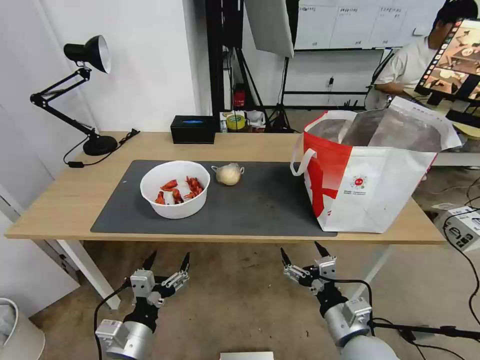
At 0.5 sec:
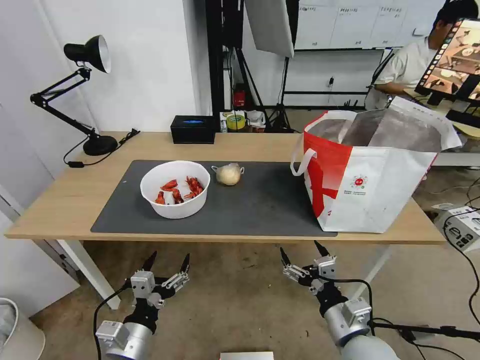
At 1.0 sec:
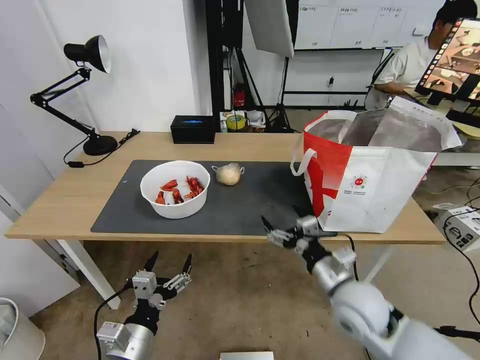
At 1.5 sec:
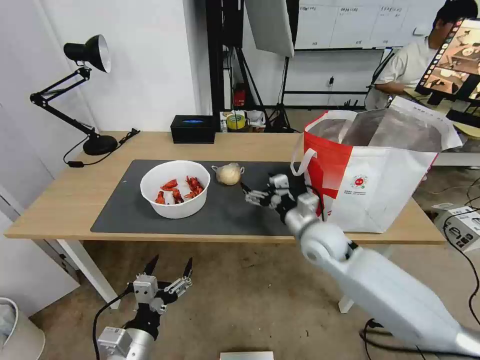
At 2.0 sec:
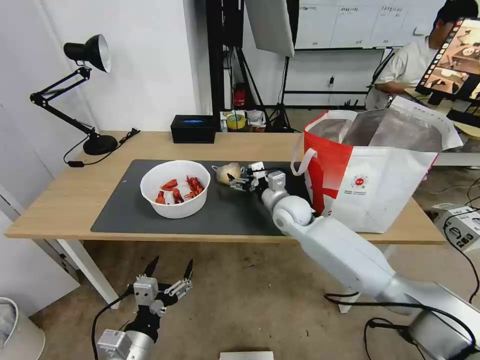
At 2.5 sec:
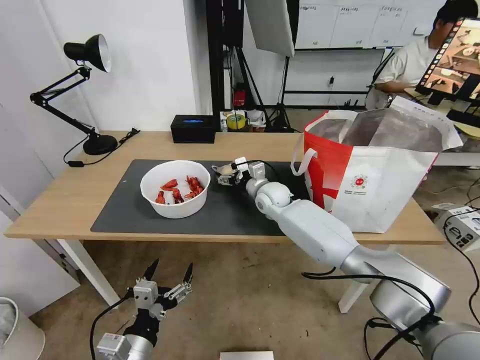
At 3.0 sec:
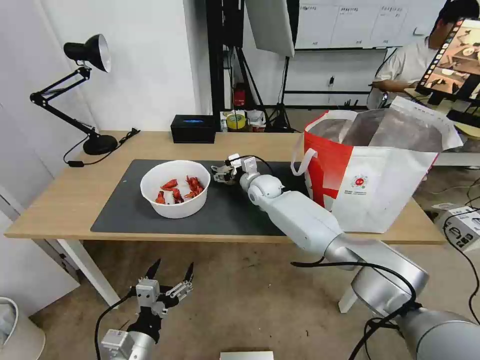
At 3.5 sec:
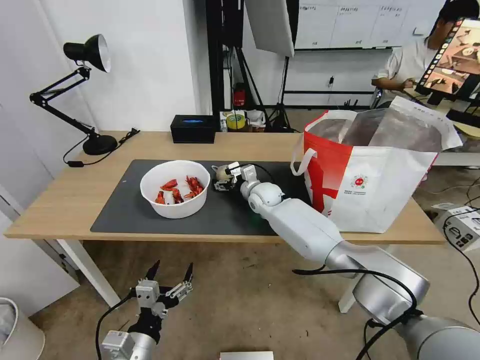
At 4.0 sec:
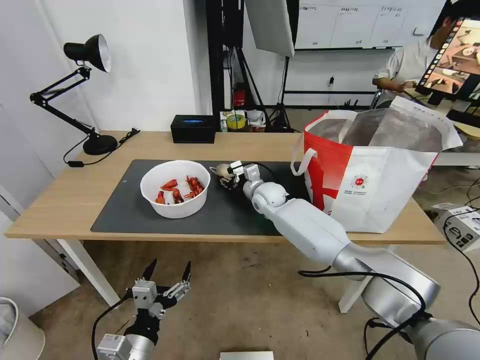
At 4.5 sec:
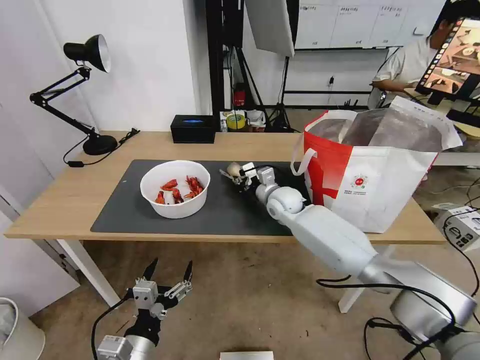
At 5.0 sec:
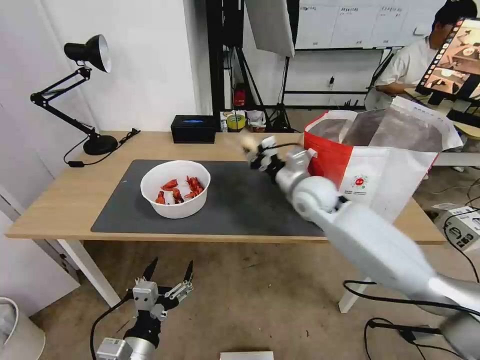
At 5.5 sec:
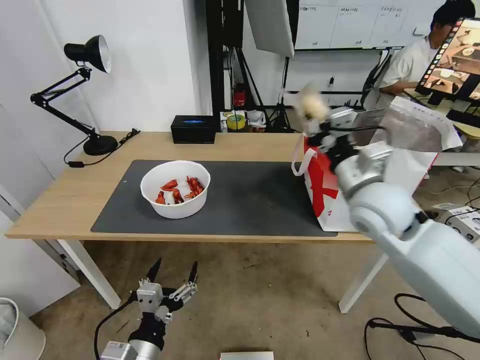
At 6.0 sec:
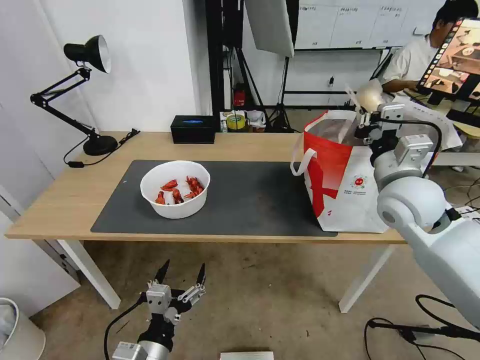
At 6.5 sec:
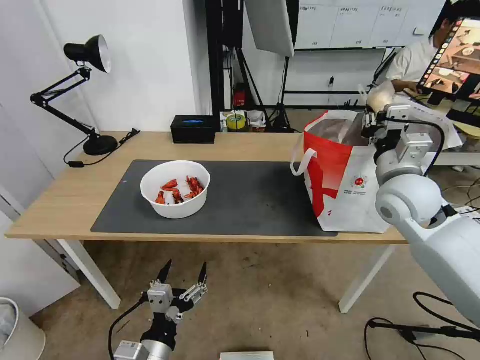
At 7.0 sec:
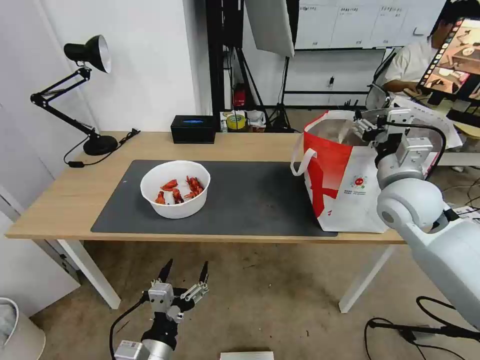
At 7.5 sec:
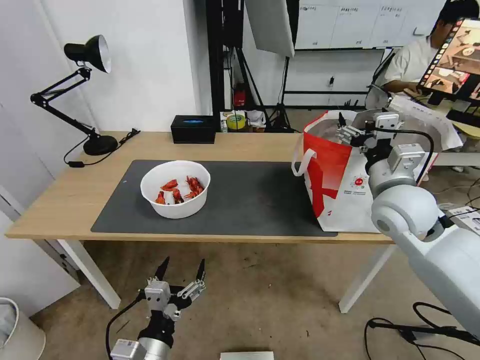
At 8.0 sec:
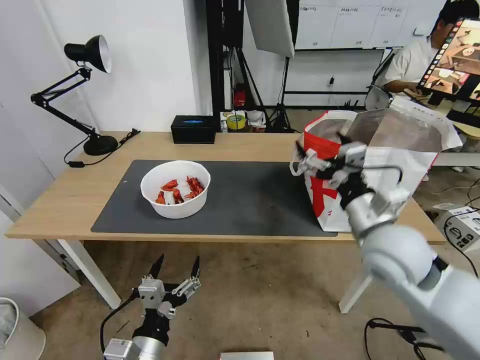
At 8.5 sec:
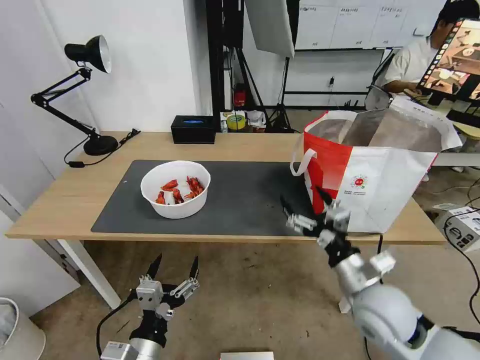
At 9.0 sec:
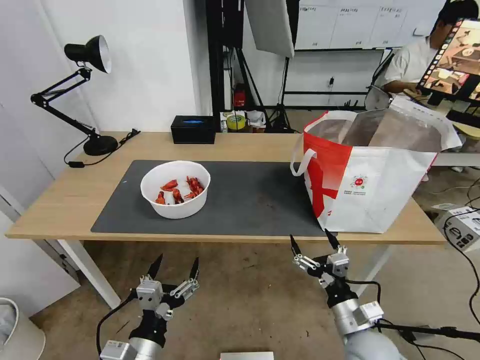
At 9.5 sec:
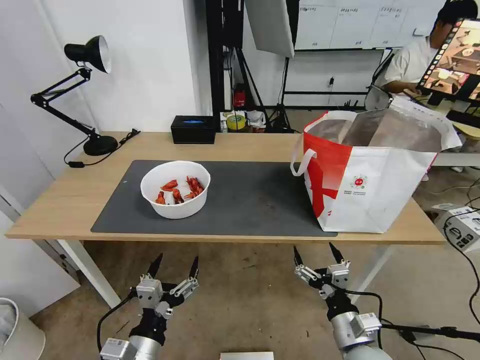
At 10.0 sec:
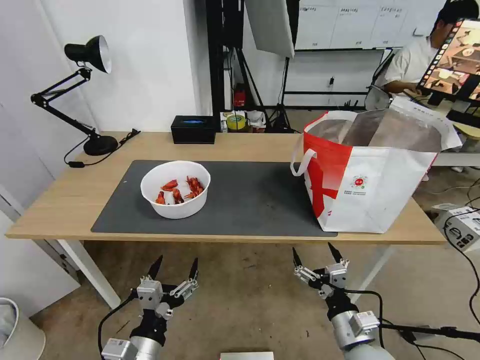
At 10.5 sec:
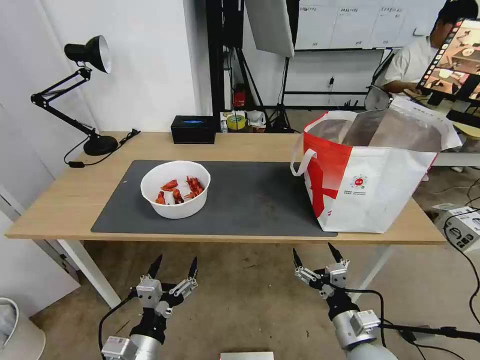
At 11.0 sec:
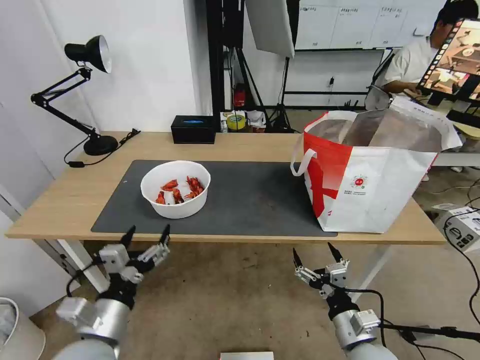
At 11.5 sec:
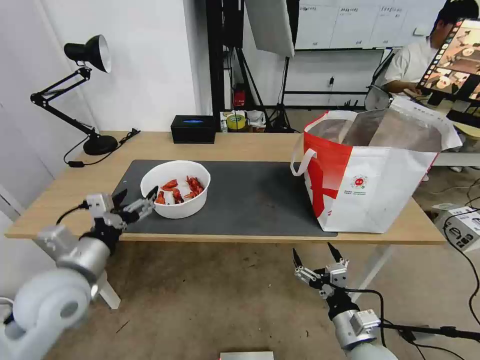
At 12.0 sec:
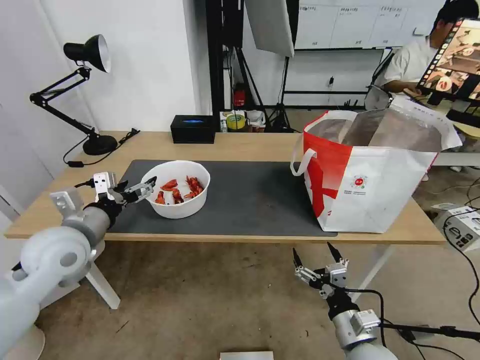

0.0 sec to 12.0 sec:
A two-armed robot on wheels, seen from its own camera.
Task of the whole recording: Pick up the trash from the table and place it into the takeout bag.
0.0 sec to 2.0 sec: The right gripper goes approximately 30 cm forward.
2.0 sec to 4.0 sec: The right gripper goes some 5 cm forward, and closes.
4.0 sec to 6.0 sec: The right gripper moves to the right, backward and upward, about 35 cm, and closes.
6.0 sec to 8.0 sec: The right gripper goes approximately 10 cm backward and to the left, and opens.
8.0 sec to 10.0 sec: The right gripper is displaced downward and backward by roughly 25 cm.
10.0 sec to 12.0 sec: The left gripper moves forward, upward and to the left, roughly 30 cm.

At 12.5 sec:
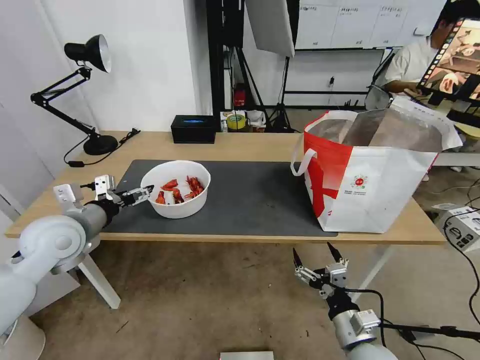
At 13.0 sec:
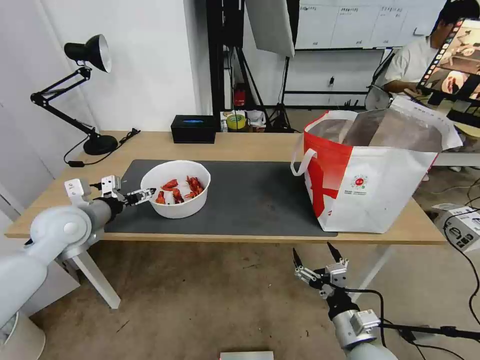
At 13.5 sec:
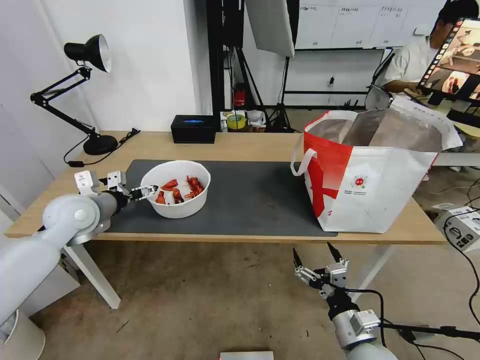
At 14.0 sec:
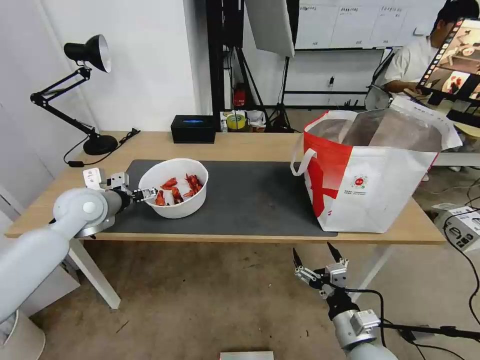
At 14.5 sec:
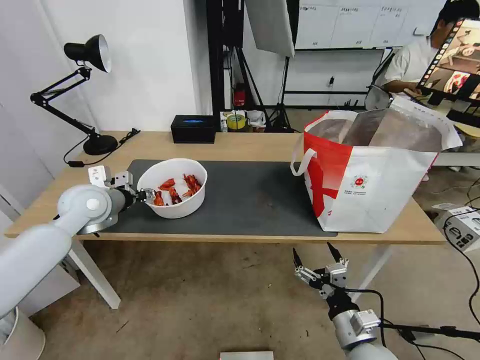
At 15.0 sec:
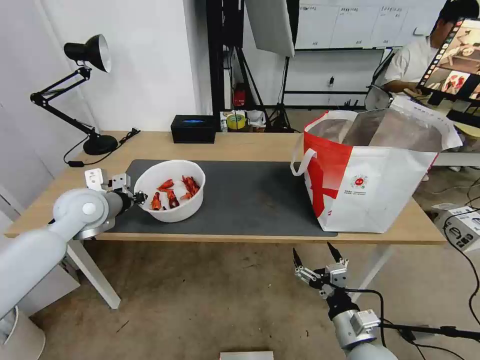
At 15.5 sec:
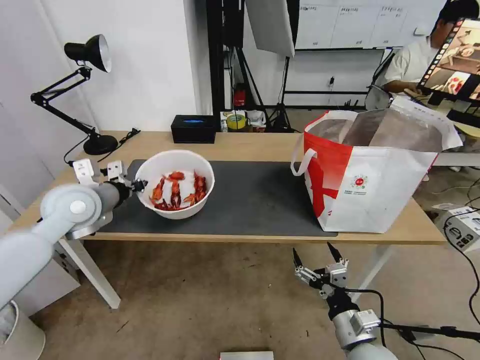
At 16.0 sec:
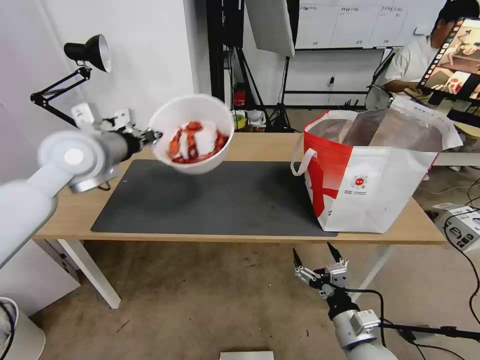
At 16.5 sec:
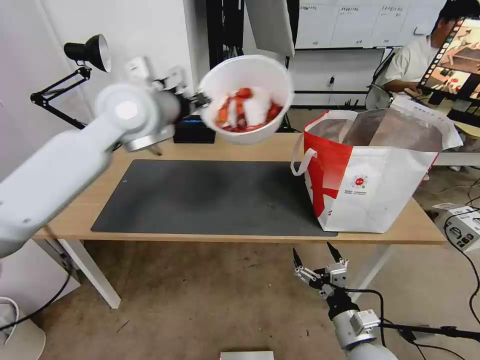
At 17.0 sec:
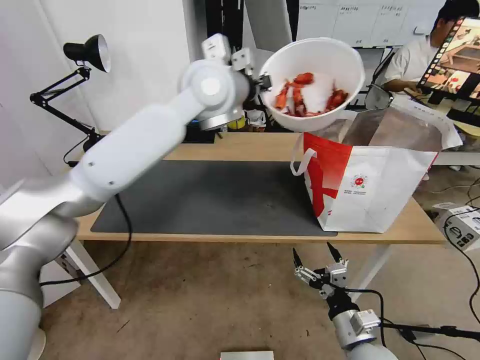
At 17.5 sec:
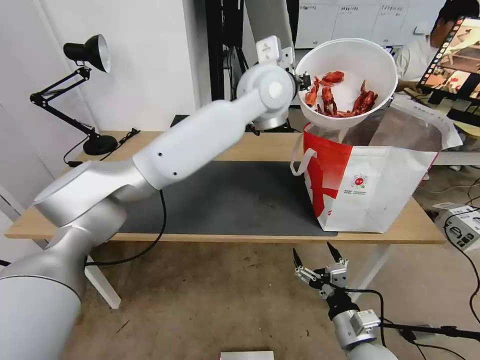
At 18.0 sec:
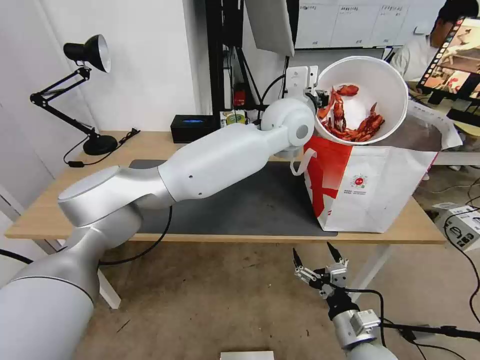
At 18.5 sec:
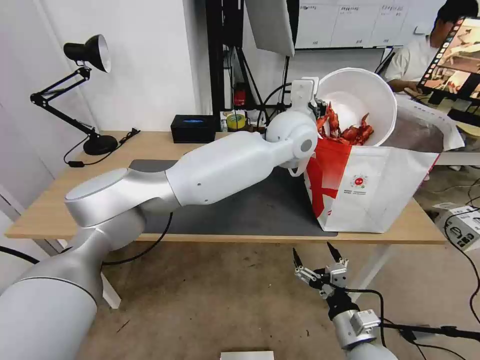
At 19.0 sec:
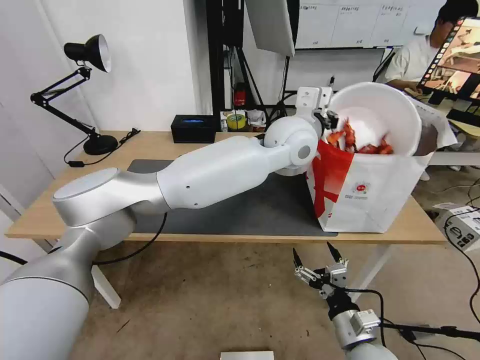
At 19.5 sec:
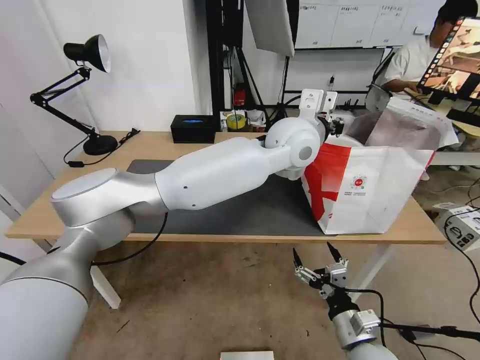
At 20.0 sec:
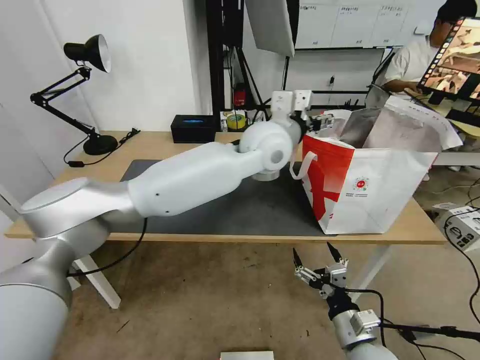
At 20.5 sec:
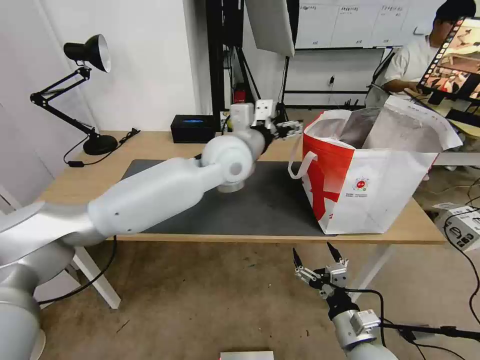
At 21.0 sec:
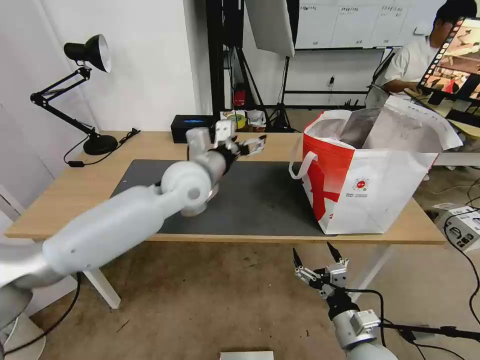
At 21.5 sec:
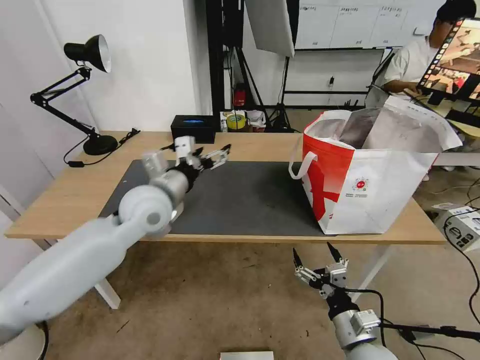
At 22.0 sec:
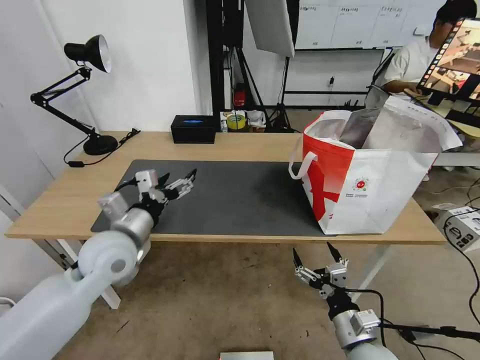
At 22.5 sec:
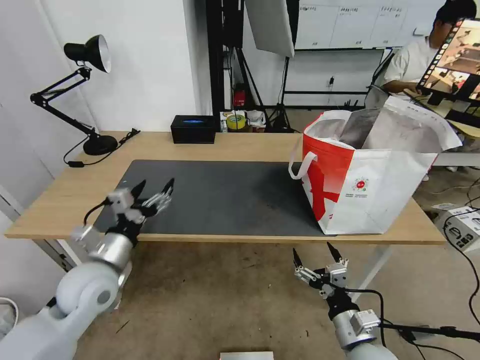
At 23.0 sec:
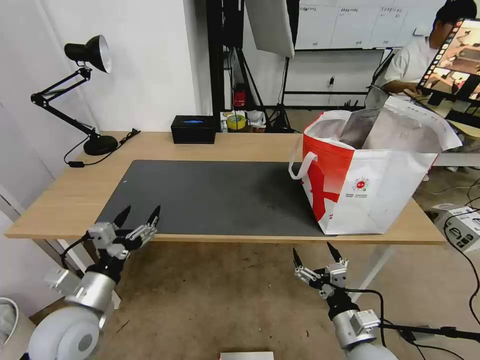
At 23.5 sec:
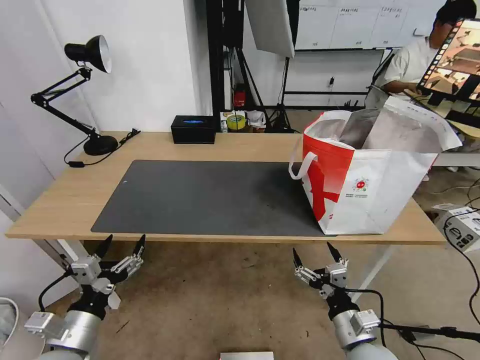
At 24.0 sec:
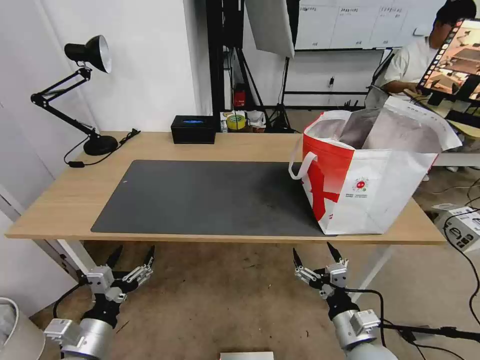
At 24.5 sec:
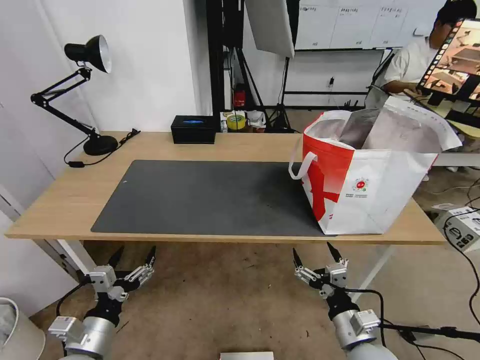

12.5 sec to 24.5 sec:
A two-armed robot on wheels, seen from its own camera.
Task of the whole recording: Pick up the trash from the table and place it into the takeout bag.
12.5 sec to 14.5 sec: The left gripper travels forward by about 10 cm, and closes its fingers.
14.5 sec to 16.5 sec: The left gripper is displaced upward and to the right by approximately 25 cm, and closes.
16.5 sec to 18.5 sec: The left gripper shifts approximately 25 cm to the right.
18.5 sec to 20.5 sec: The left gripper heads to the left, covering about 10 cm, and opens.
20.5 sec to 22.5 sec: The left gripper moves to the left, backward and downward, about 35 cm.
22.5 sec to 24.5 sec: The left gripper moves backward and downward, roughly 15 cm.

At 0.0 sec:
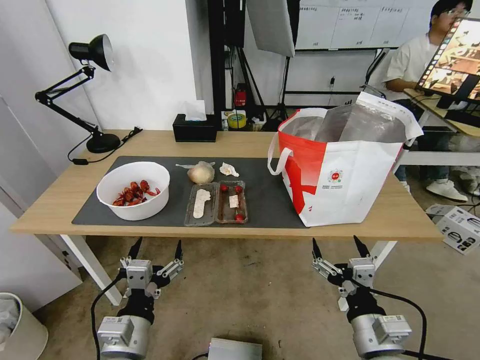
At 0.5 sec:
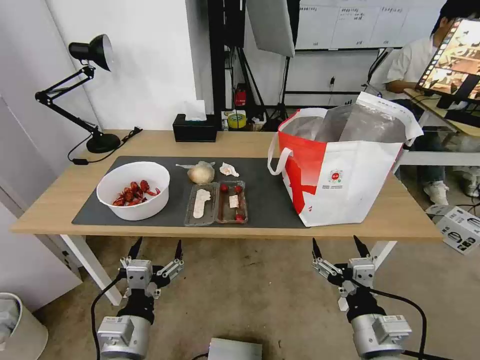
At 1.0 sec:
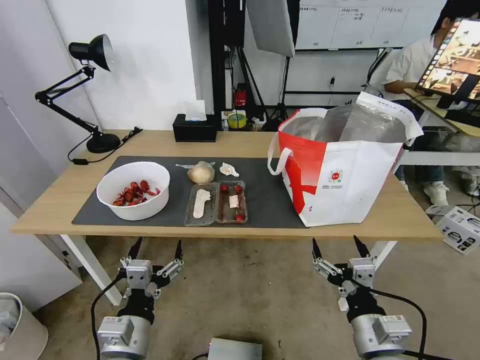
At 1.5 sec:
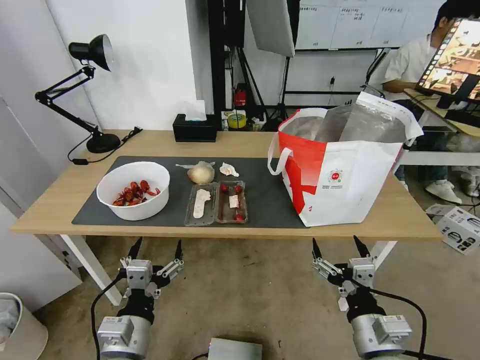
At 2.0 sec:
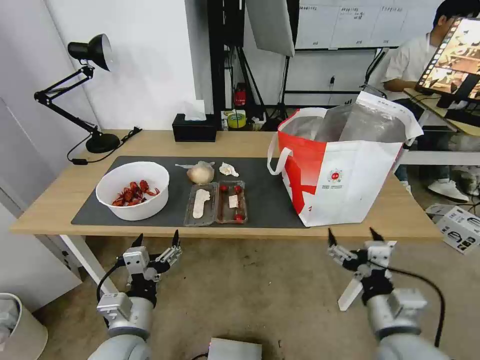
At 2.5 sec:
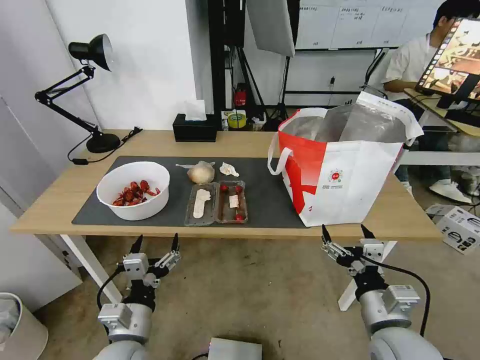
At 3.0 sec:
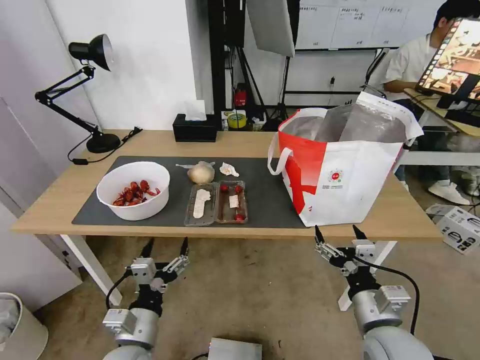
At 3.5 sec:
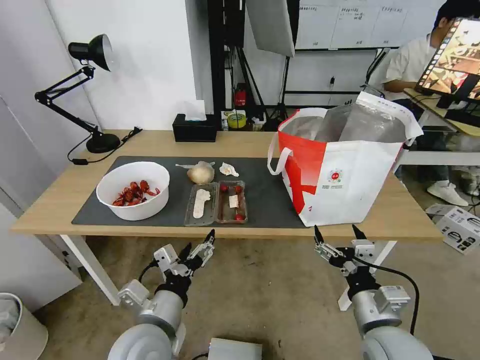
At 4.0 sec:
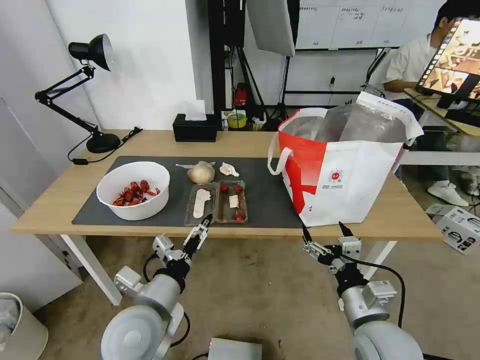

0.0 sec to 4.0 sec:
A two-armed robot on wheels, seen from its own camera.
Task of the whole recording: Pick up the trash from the table and place it into the takeout bag.
2.0 sec to 4.0 sec: The left gripper ends up about 5 cm from where it was.
